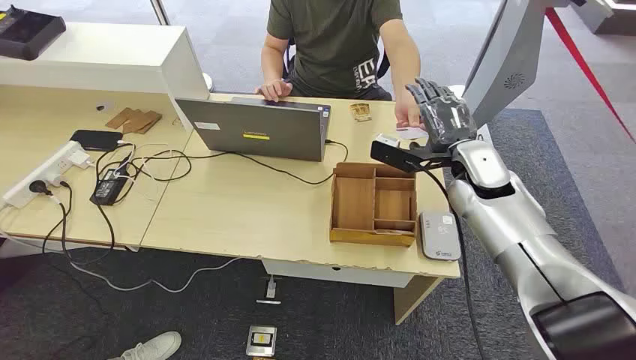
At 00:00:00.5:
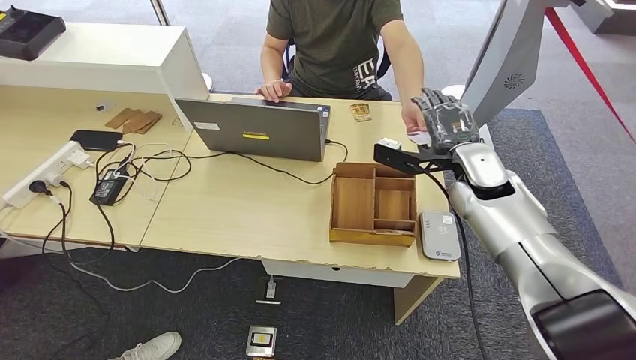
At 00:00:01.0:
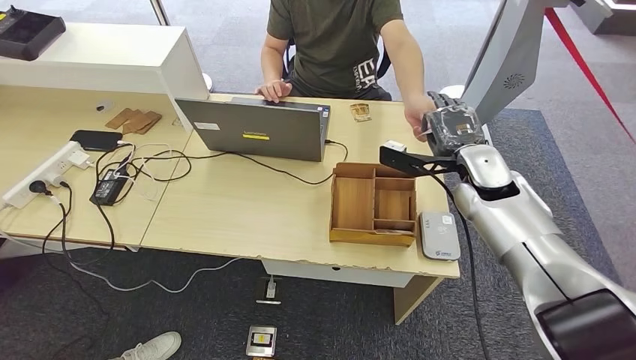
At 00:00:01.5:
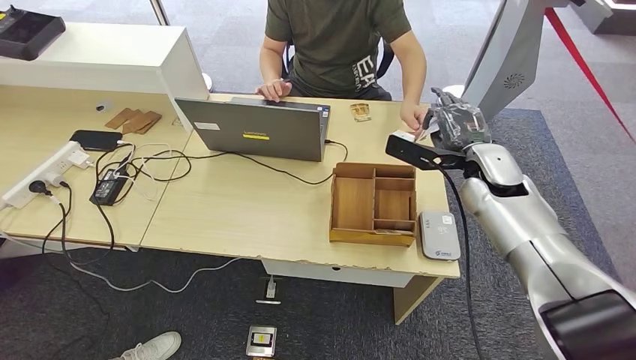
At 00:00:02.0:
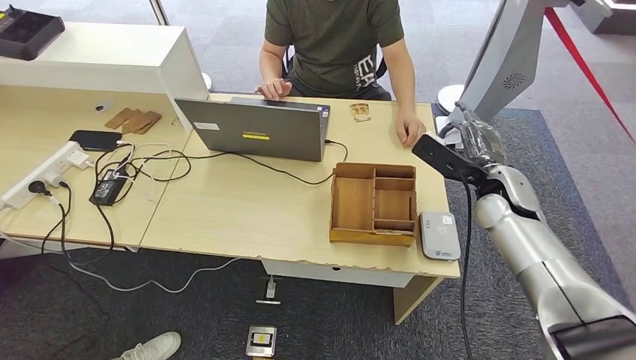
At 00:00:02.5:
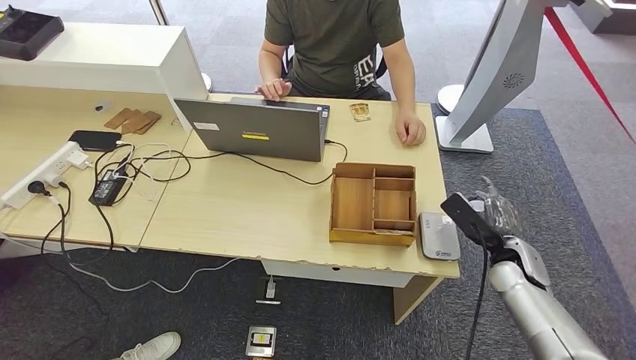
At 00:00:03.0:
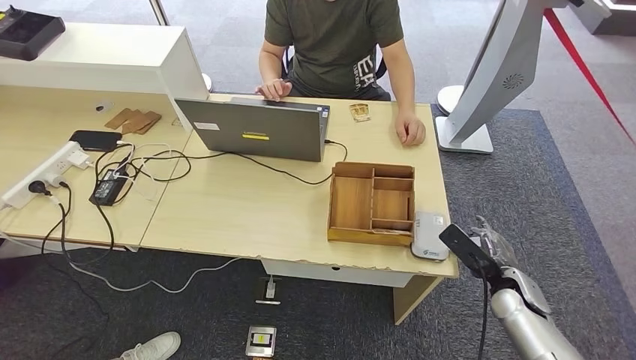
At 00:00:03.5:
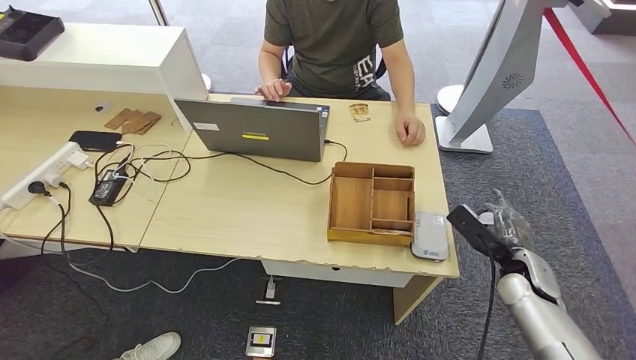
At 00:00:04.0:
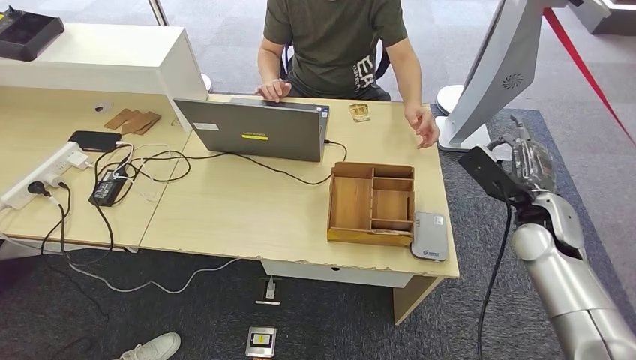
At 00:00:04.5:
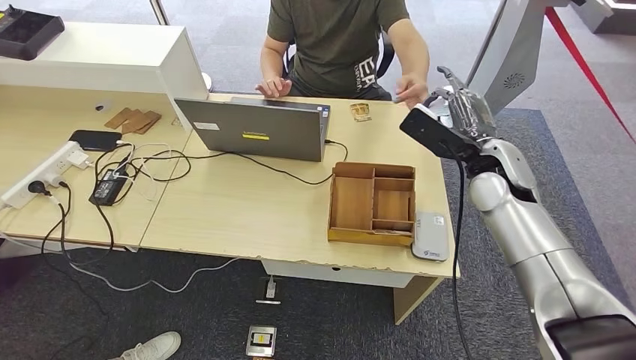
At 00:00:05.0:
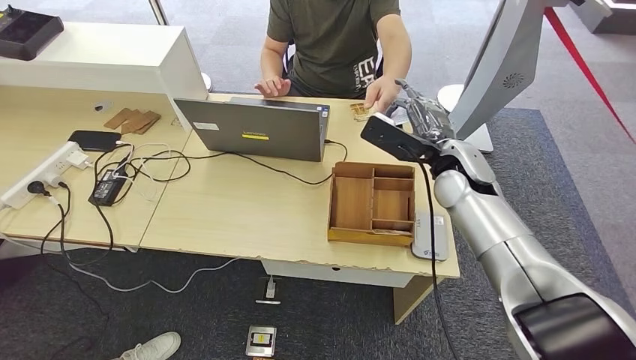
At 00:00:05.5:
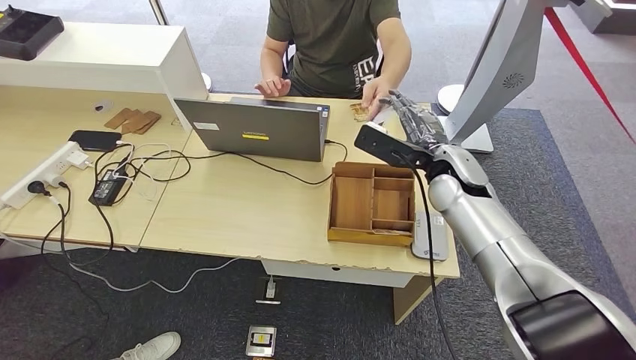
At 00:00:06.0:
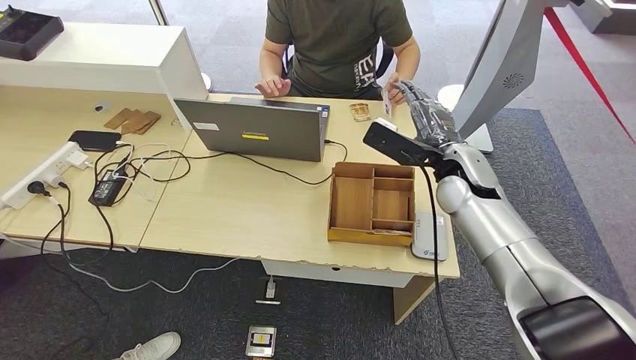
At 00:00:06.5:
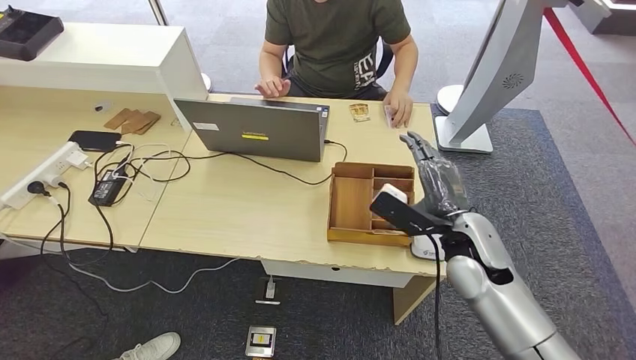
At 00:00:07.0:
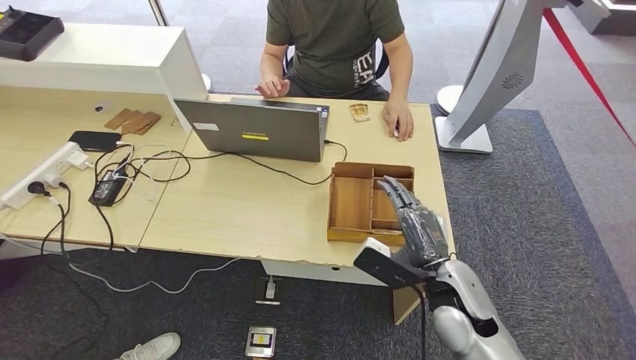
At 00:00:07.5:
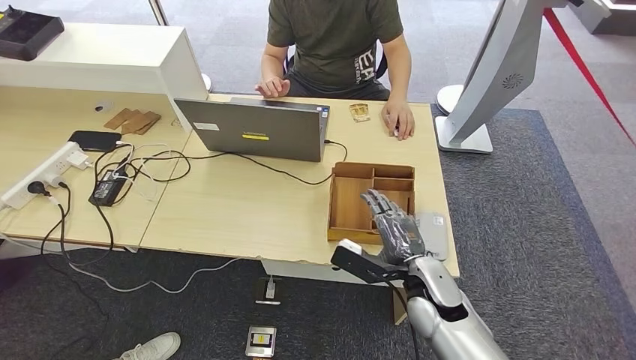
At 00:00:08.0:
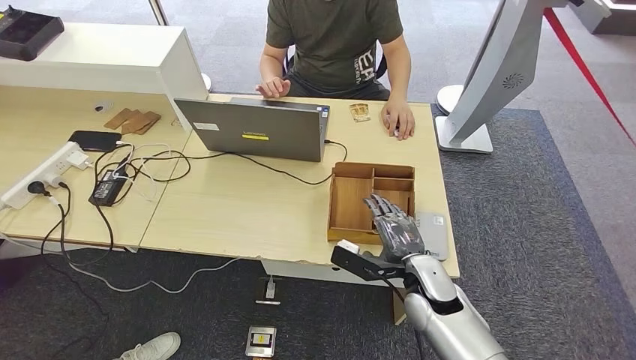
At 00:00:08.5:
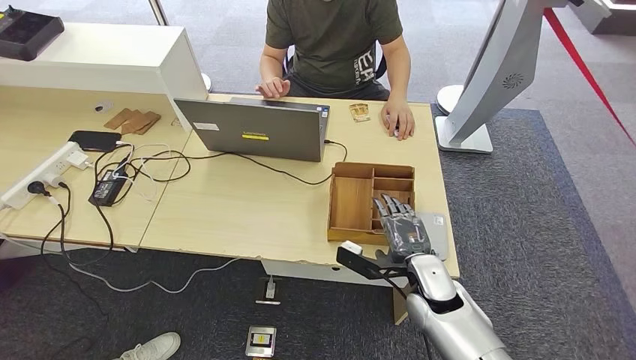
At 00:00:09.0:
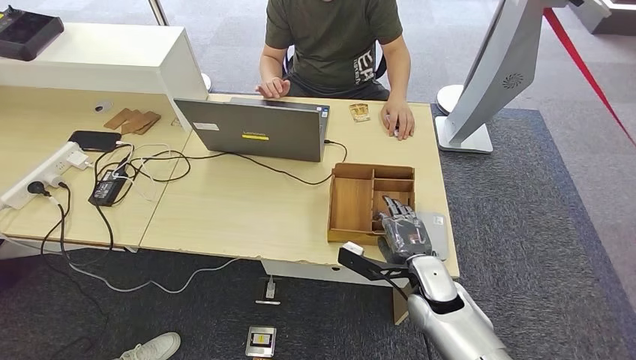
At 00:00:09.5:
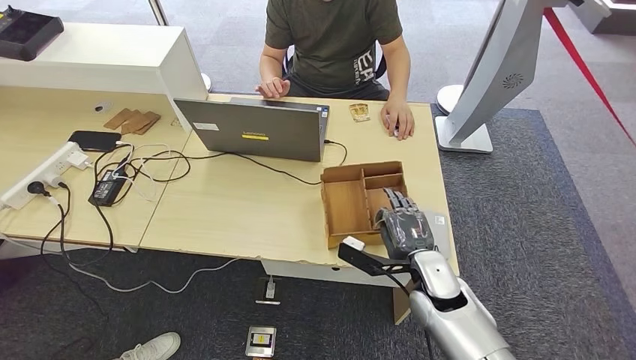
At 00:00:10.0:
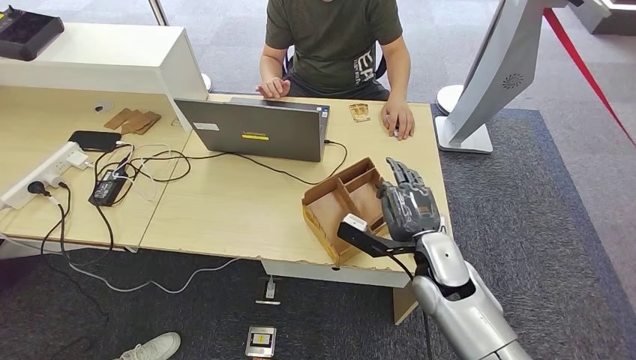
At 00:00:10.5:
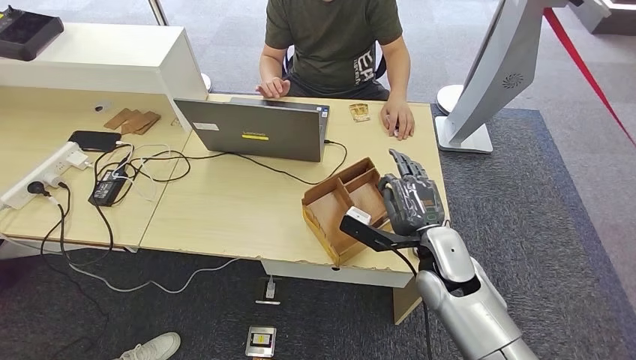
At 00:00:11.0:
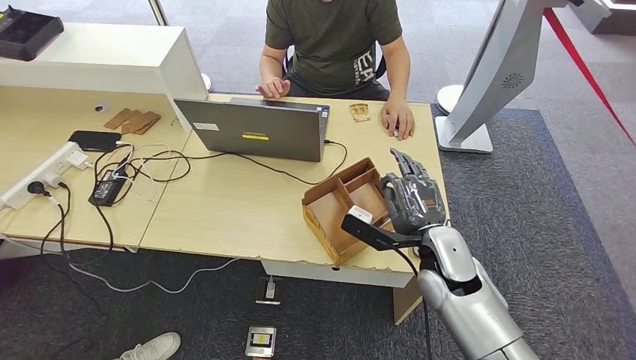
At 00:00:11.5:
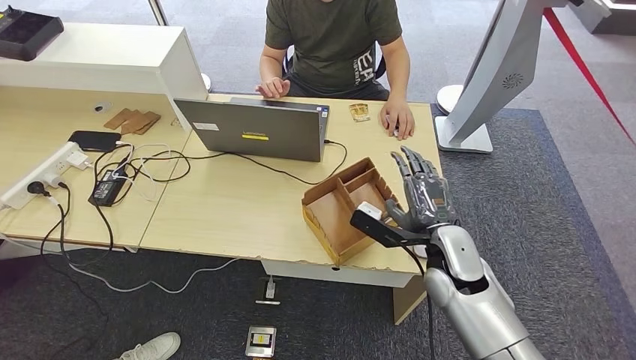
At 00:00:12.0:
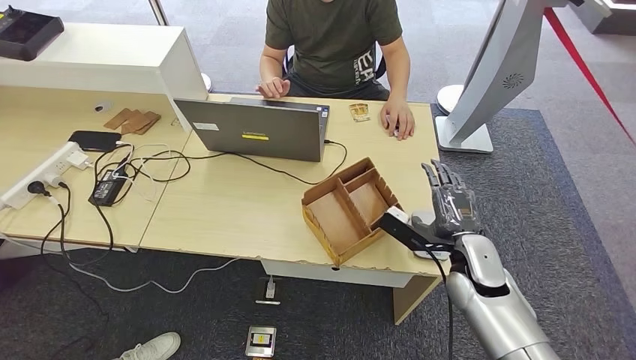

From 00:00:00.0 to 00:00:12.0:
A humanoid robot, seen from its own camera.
Step, from 00:00:00.0 to 00:00:02.0: Take the ID card from the person's hand.
Step, from 00:00:02.5 to 00:00:03.0: Place the ID card on the card reader.
Step, from 00:00:03.5 to 00:00:06.0: Hand the ID card to the person.
From 00:00:02.0 to 00:00:04.0: The right hand shifts roughly 5 cm to the right, and goes downward and returns, some 15 cm each way.
From 00:00:04.0 to 00:00:06.0: The right hand is displaced to the left by approximately 15 cm.
From 00:00:06.0 to 00:00:08.0: The right hand heads downward and backward, covering approximately 20 cm.
From 00:00:08.0 to 00:00:10.0: The right hand ends up approximately 5 cm from where it was.
From 00:00:10.0 to 00:00:12.0: The right hand shifts approximately 5 cm to the right.

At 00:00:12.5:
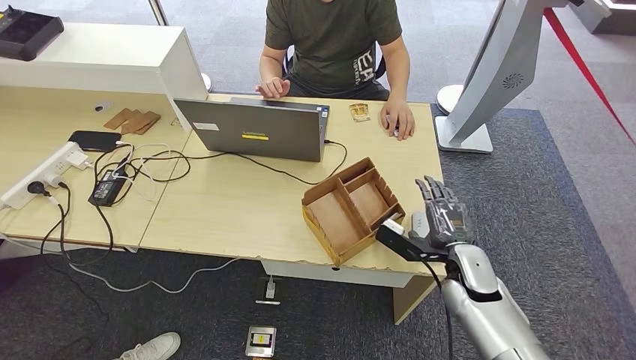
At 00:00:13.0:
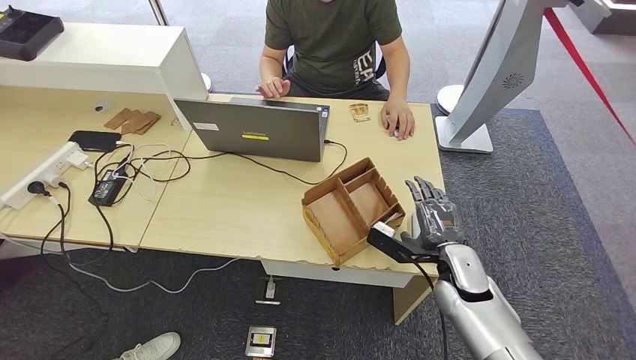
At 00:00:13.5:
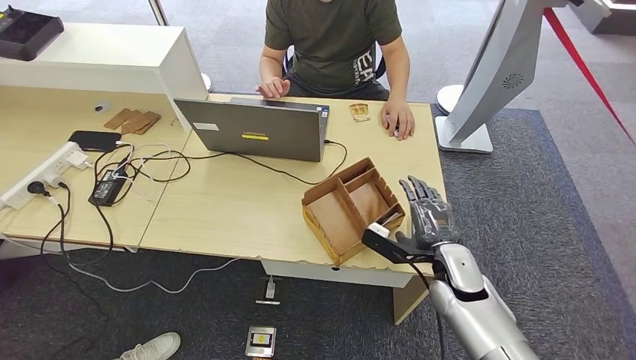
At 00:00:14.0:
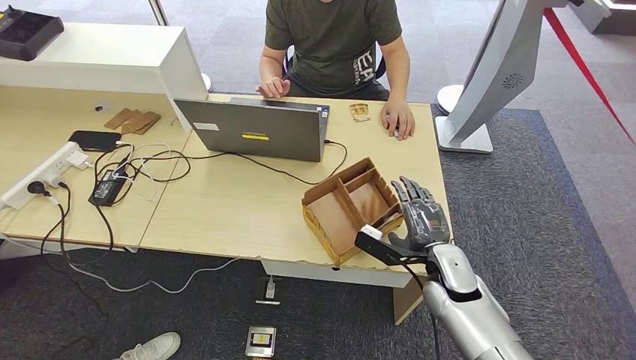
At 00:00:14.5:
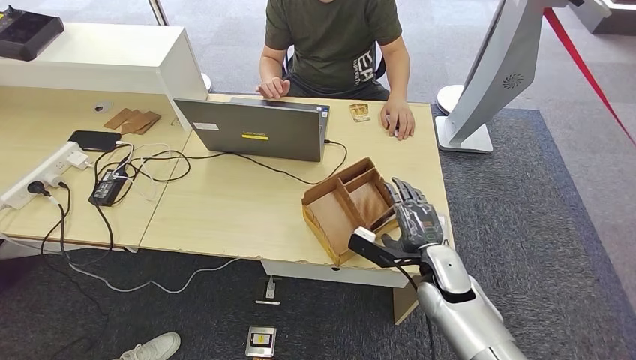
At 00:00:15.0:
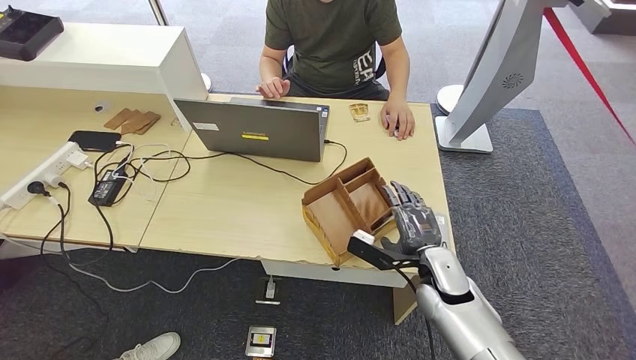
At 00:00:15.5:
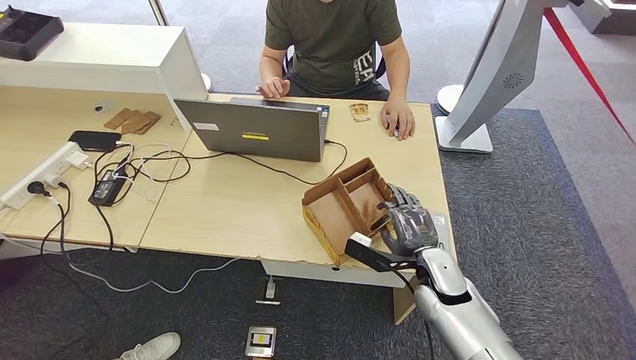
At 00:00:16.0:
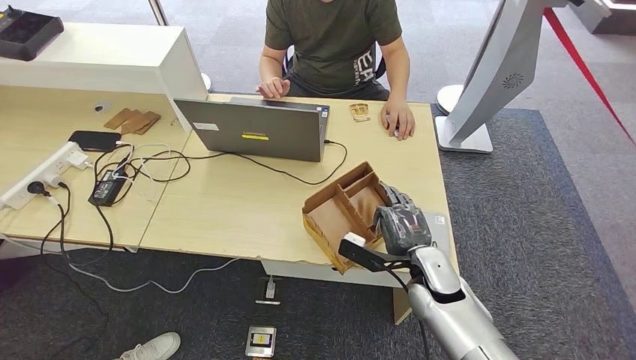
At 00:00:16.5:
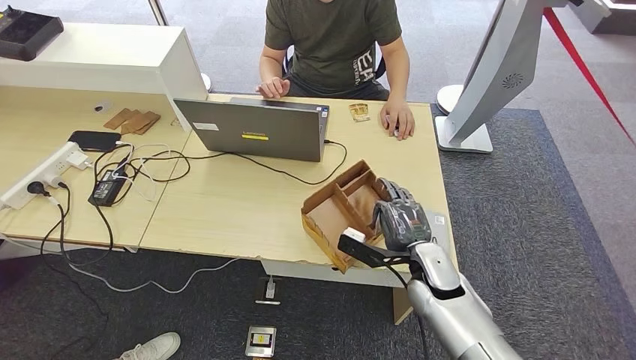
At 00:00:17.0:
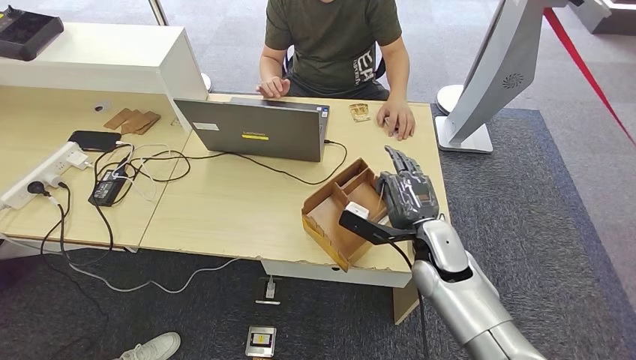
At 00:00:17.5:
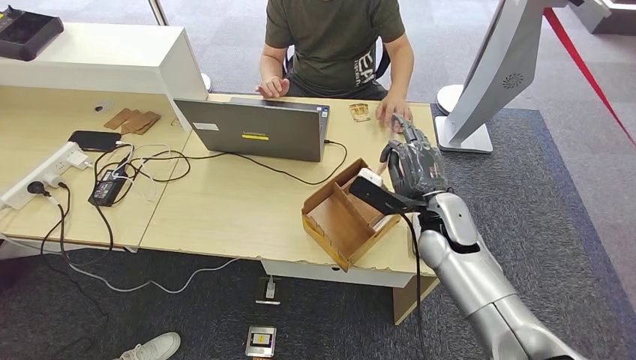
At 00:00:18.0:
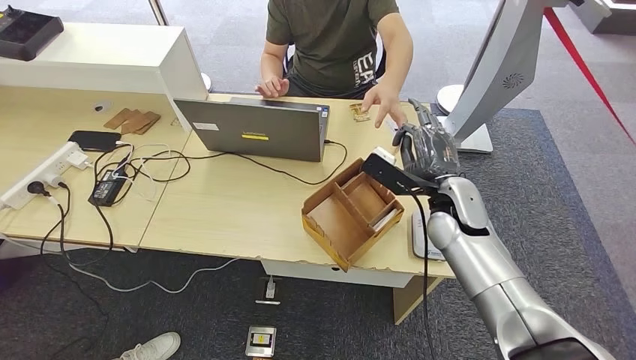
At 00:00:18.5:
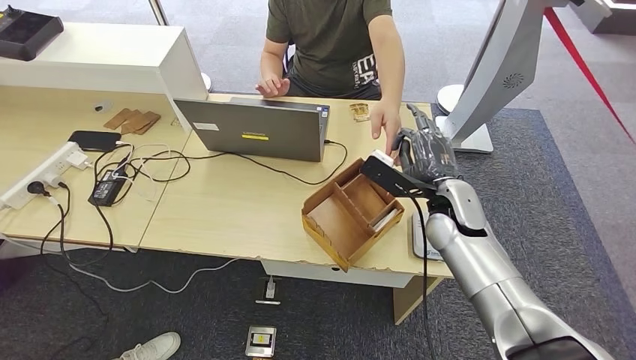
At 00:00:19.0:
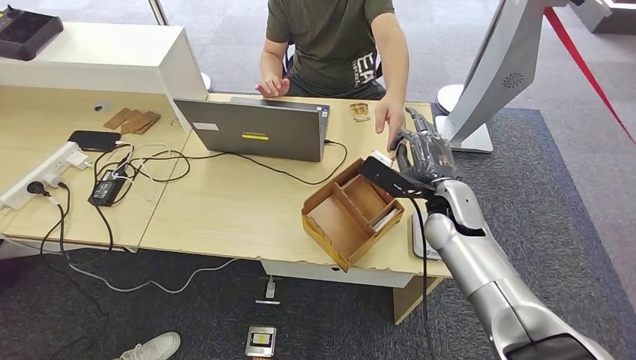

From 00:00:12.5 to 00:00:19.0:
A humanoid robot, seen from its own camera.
Step, from 00:00:15.5 to 00:00:18.0: Pick up the room key from the key card box.
Step, from 00:00:18.5 to 00:00:19.0: Hand the room key to the person.
From 00:00:12.5 to 00:00:14.5: The hands make only small movements.
From 00:00:14.5 to 00:00:17.0: The right hand shifts some 5 cm upward.
From 00:00:17.0 to 00:00:19.0: The right hand shifts roughly 5 cm forward.
